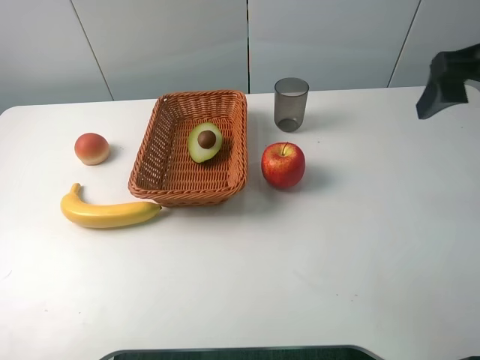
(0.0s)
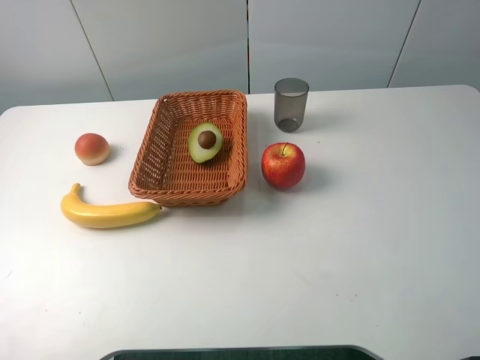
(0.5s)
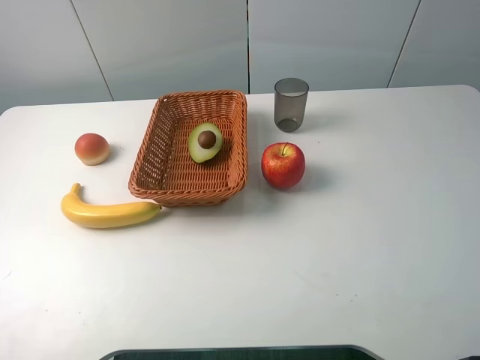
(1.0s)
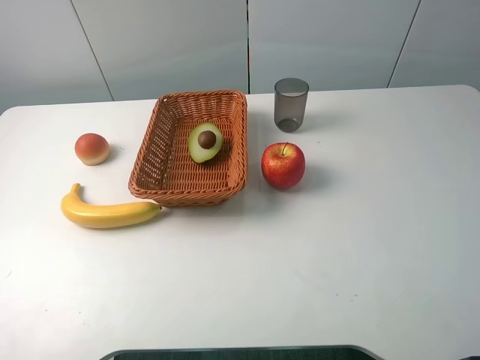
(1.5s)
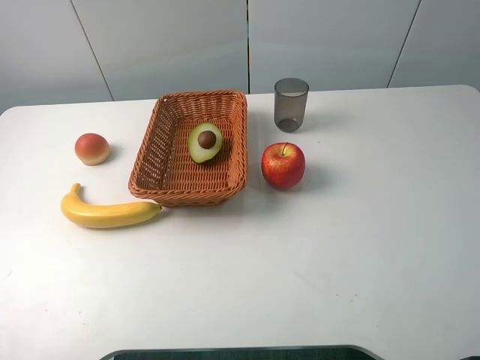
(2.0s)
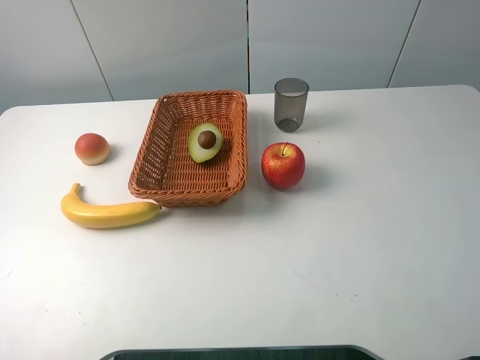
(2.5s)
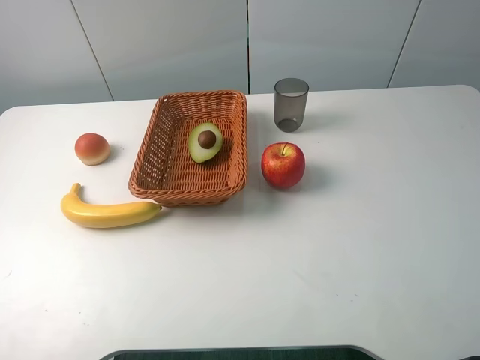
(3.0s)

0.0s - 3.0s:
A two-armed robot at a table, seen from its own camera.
0.0s - 1.5s: The right gripper heads backward, covering about 20 cm.
1.5s - 3.0s: Neither gripper changes place.
